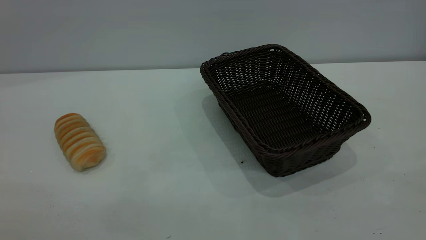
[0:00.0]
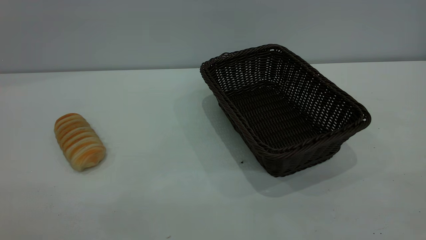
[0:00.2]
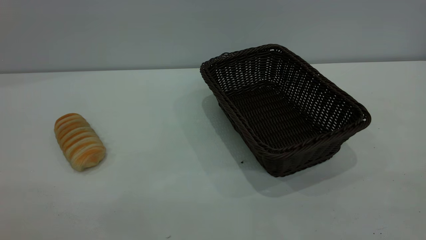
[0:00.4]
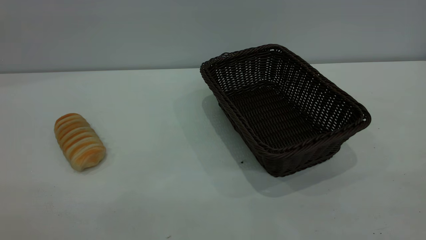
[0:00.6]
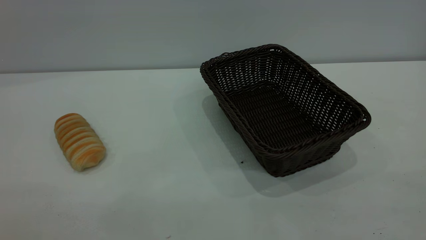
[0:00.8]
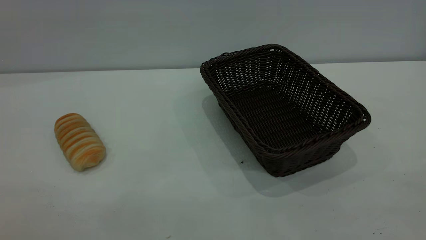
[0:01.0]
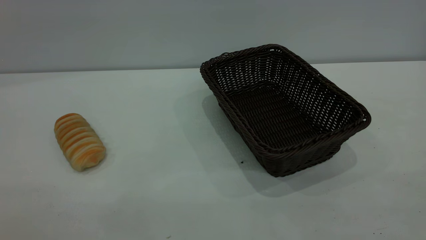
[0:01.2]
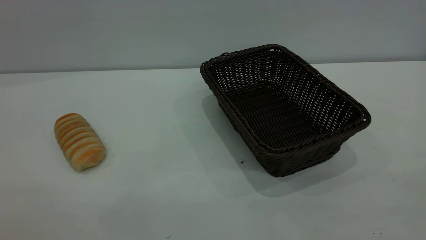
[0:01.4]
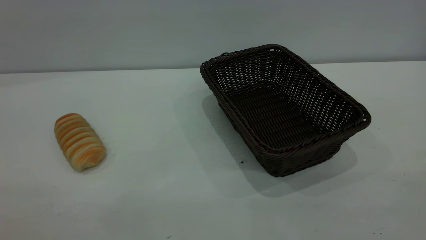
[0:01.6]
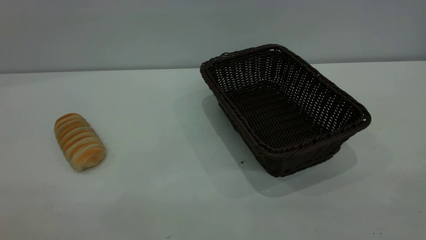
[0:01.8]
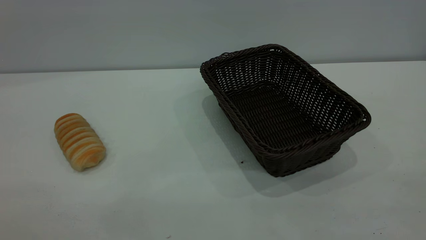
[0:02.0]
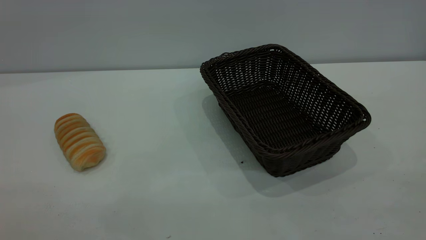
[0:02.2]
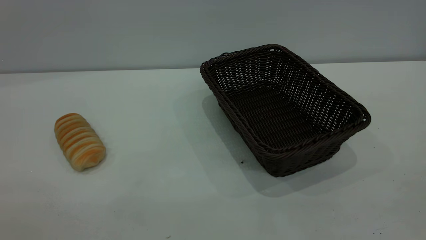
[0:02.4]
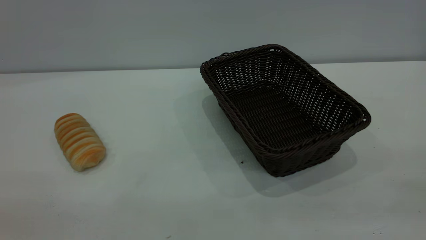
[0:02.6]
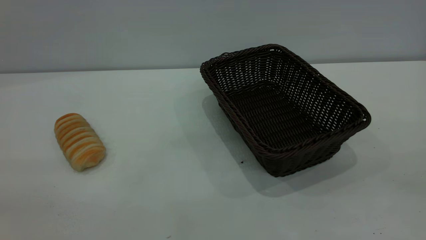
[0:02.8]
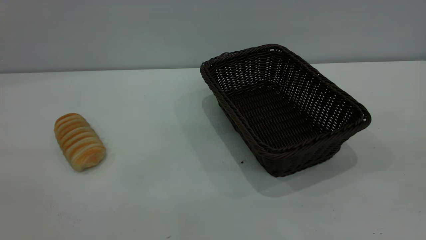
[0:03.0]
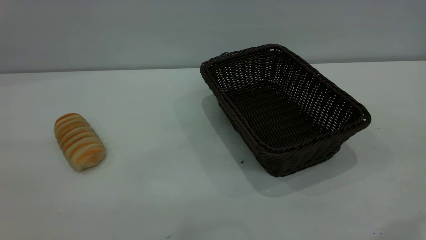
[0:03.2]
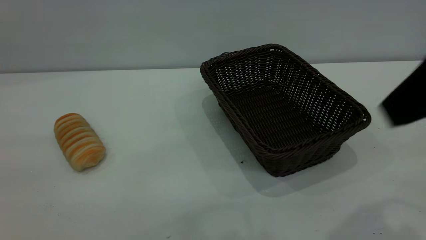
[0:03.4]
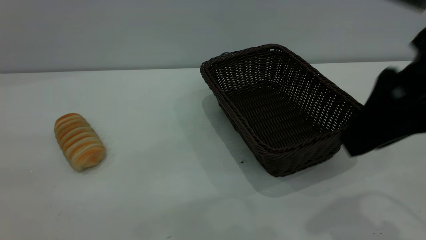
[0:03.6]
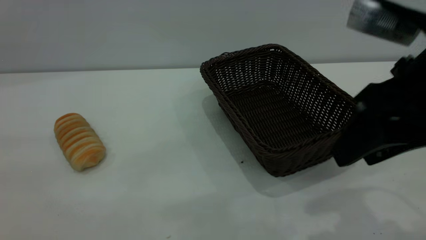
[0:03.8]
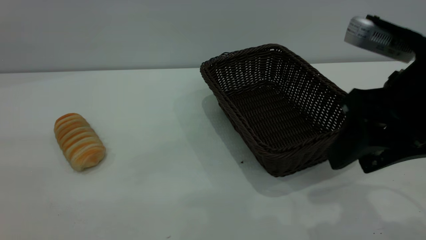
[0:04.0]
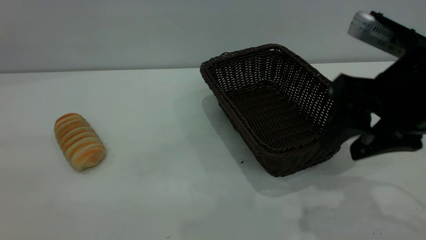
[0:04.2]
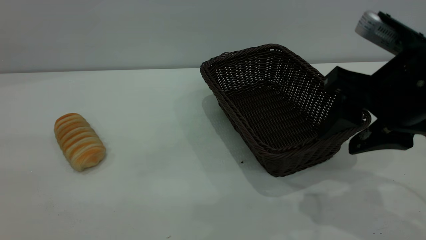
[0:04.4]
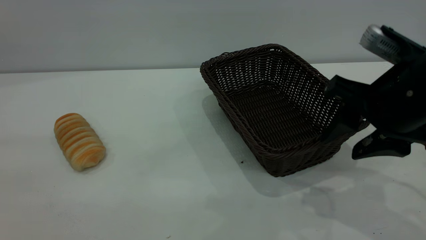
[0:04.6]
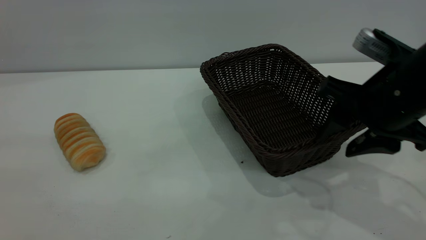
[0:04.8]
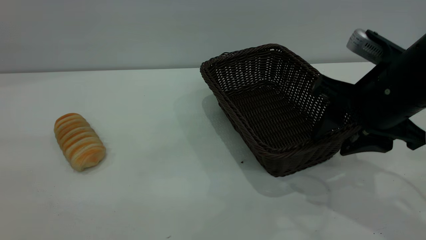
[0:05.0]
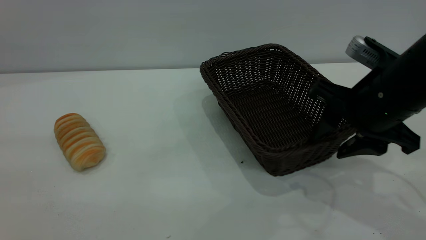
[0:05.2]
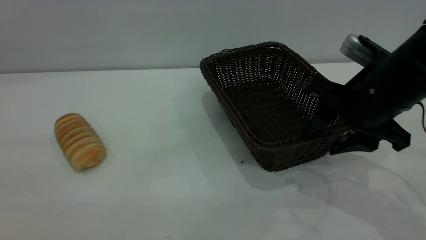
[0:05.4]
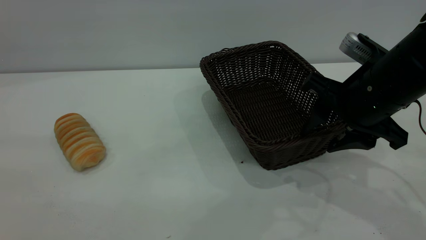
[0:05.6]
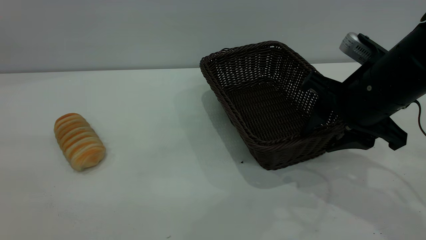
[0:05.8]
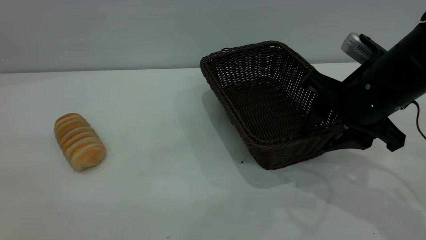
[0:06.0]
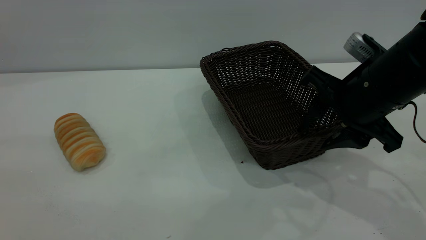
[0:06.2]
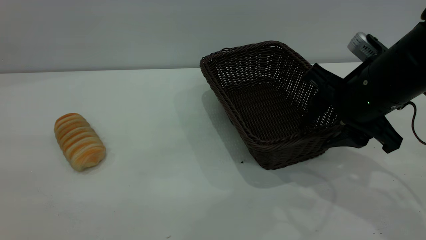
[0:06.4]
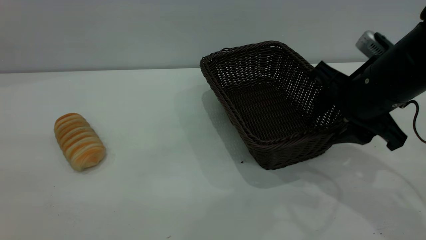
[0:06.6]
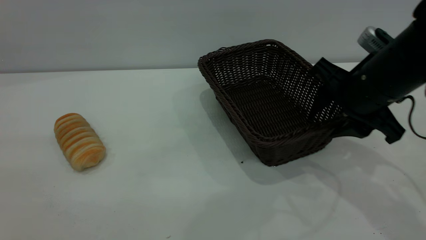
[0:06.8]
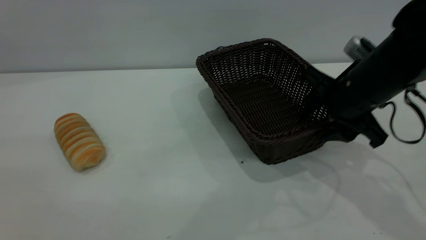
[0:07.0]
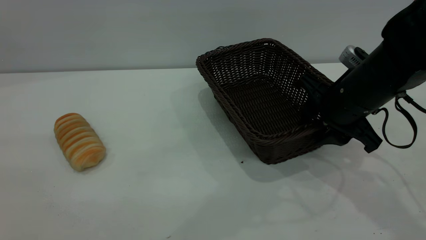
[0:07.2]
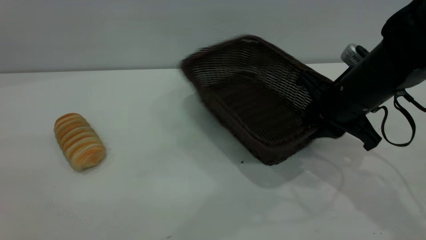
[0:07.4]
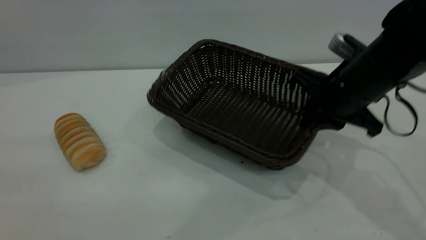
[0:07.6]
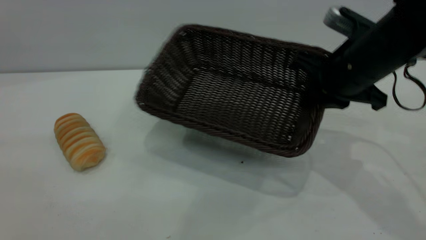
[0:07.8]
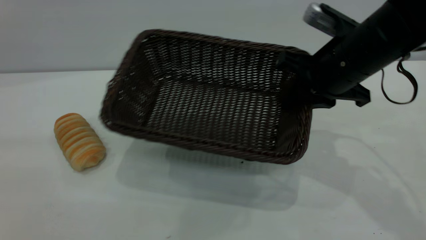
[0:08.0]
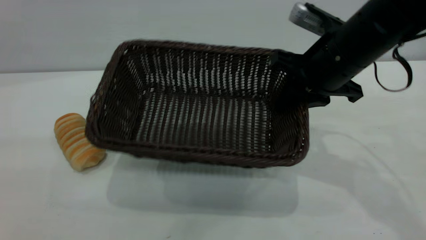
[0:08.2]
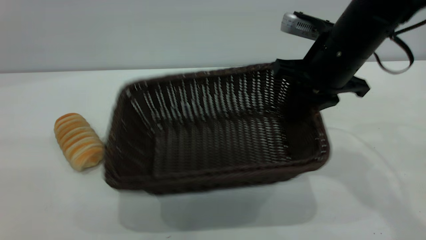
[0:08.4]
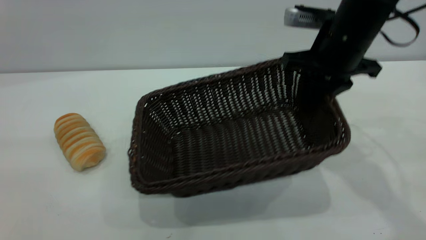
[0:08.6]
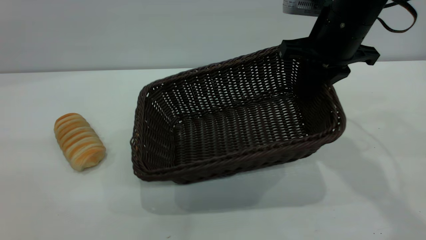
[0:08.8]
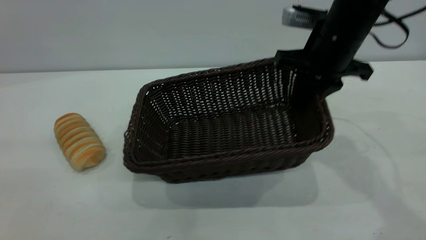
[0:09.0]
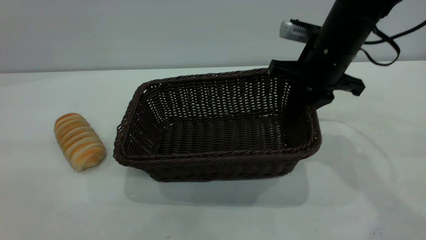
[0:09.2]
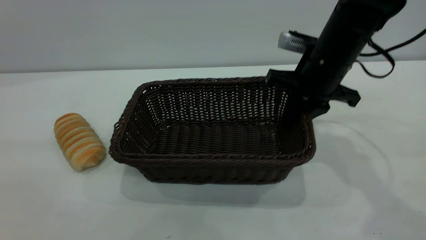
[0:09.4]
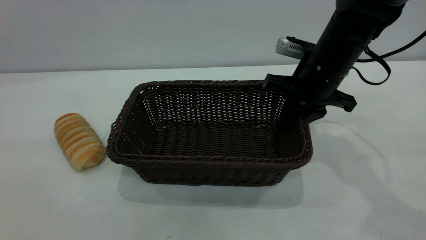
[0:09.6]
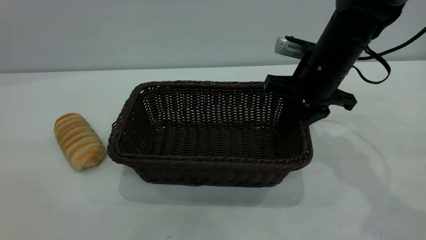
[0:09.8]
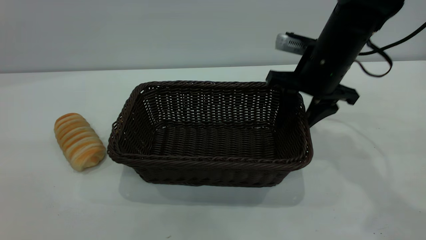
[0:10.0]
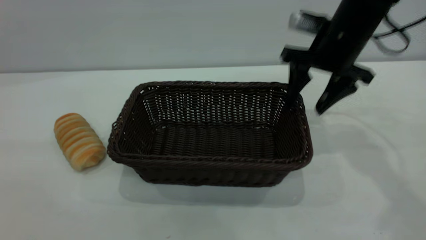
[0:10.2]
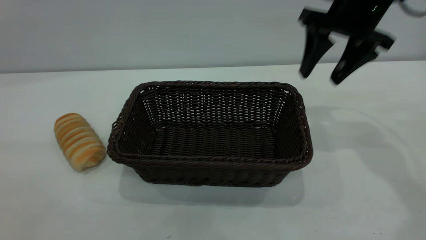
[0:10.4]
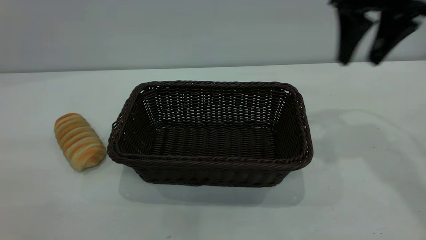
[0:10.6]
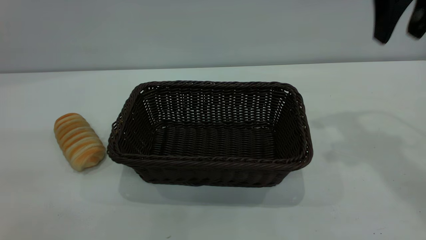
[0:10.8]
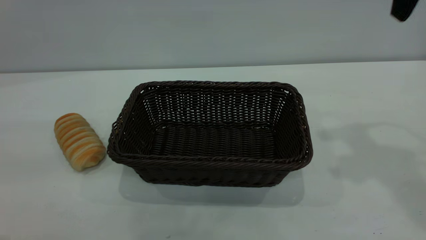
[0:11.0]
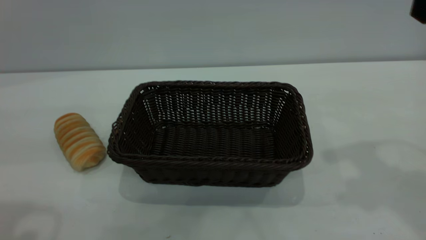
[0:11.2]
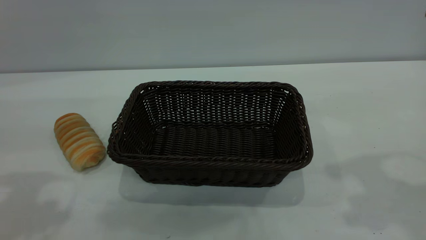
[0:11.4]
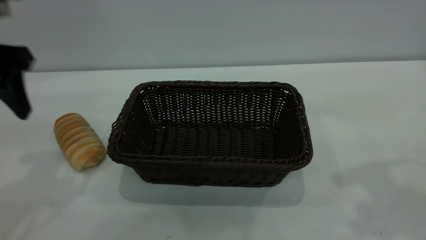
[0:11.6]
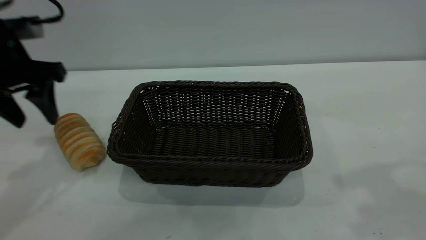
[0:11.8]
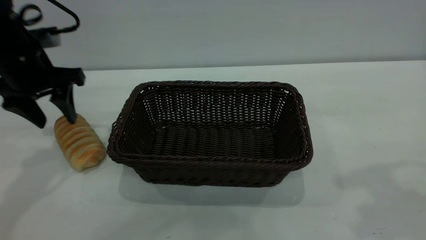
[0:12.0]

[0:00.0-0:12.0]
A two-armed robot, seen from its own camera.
Task of the whole recording: One hand grasps the black basket and places it in the middle of the table, while the other hand picks up the long bread and puts it into the black basket.
Step, 0:00.0 to 0:10.4: Move the basket to the center of view.
0:00.0 to 0:01.6: The two grippers keep their place.
0:03.0 to 0:04.4: The right gripper goes roughly 20 cm downward and forward.
0:04.4 to 0:06.0: The right gripper changes place by approximately 5 cm.
0:06.0 to 0:07.6: The right gripper closes.
0:07.6 to 0:09.0: The right gripper goes some 5 cm forward.
0:09.0 to 0:10.4: The right gripper moves upward, about 5 cm, and opens its fingers.
0:10.4 to 0:12.0: The left gripper travels forward and downward by some 40 cm, while the right gripper moves backward and upward, about 25 cm.

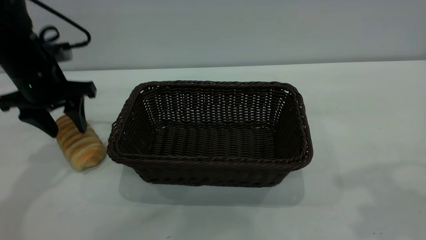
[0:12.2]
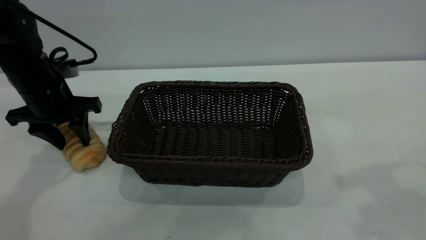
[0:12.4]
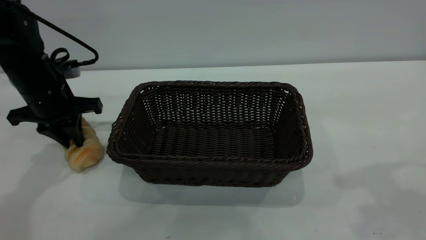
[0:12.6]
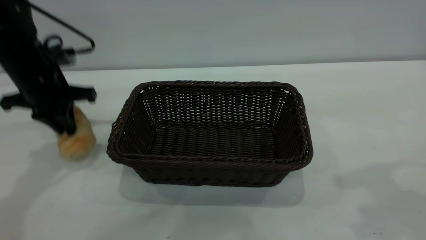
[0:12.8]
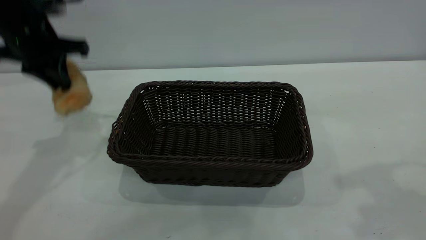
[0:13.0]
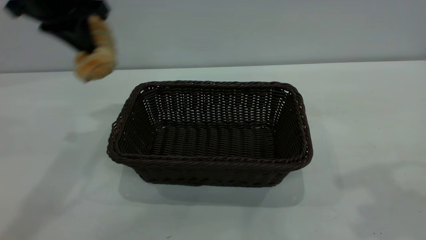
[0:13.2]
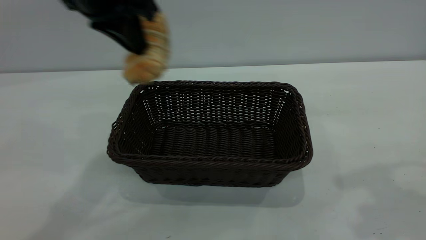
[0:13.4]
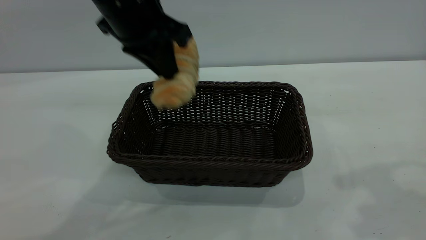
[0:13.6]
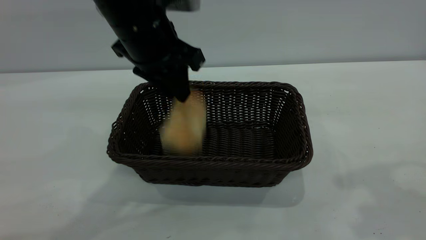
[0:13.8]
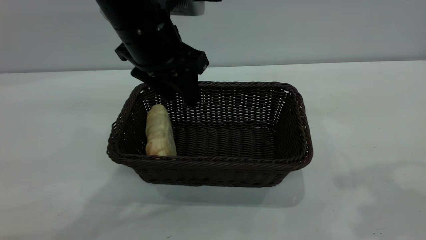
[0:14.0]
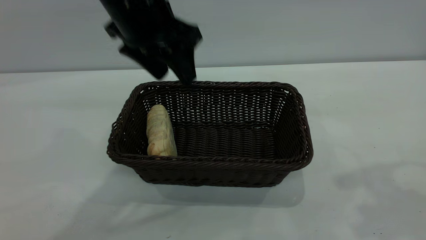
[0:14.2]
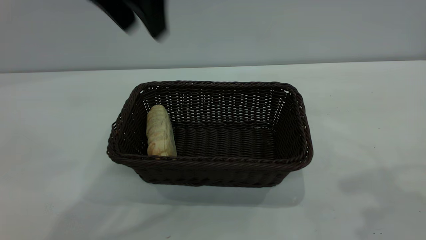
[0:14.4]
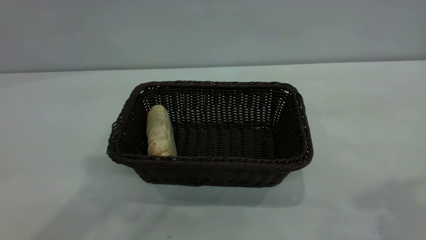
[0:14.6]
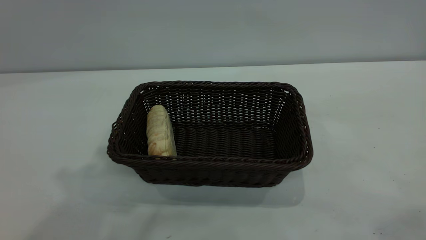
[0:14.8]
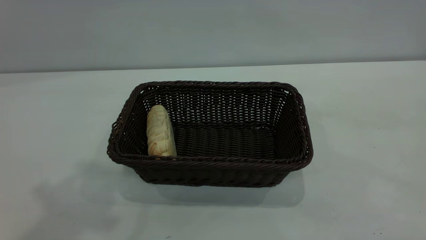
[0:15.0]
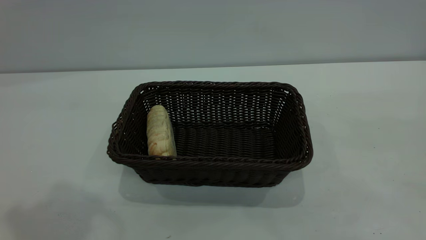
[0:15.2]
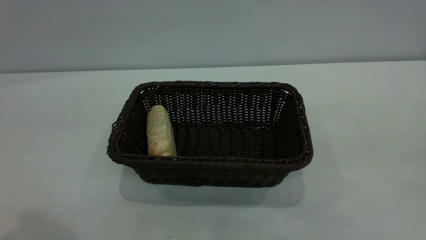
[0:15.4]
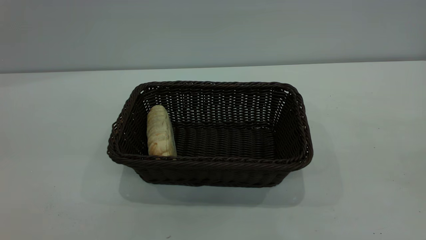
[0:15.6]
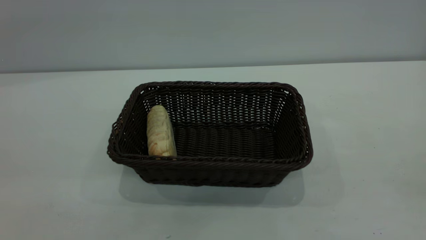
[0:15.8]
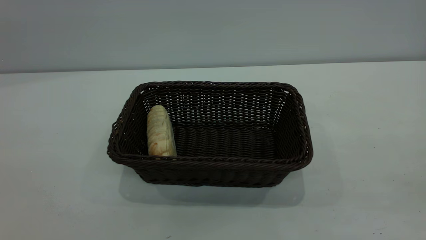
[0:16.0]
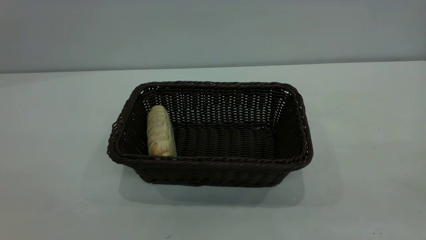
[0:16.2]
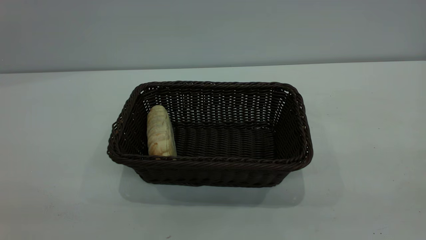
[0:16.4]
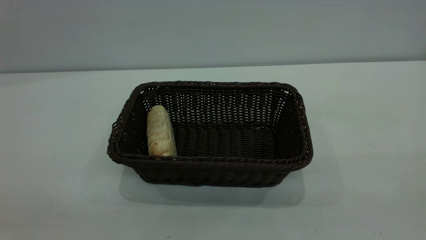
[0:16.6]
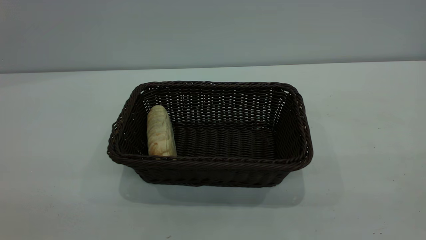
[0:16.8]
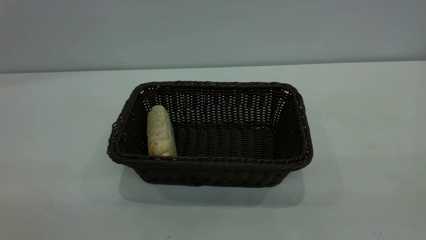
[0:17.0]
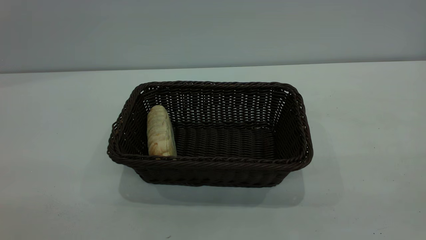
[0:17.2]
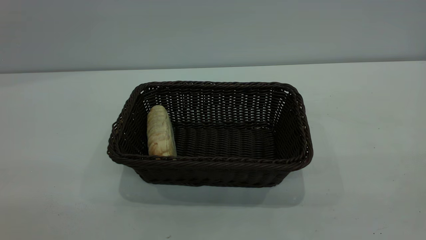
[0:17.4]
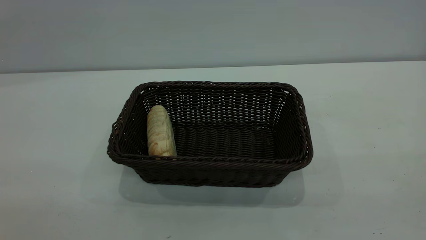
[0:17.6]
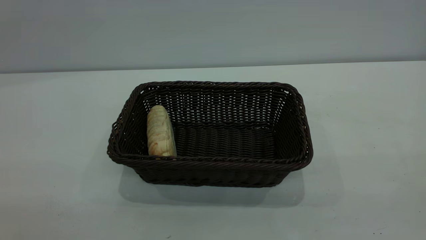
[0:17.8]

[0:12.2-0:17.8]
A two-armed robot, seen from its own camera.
Task of the whole recording: One hand grasps the black basket and places it in the middle of the table, while the other hand picks up the long bread and puts it into the black basket.
Step, 0:13.2 to 0:14.2: place the bread into the basket.
0:12.2 to 0:13.6: The left gripper goes about 20 cm to the right and upward, and closes up.
0:13.6 to 0:15.0: The left gripper goes some 25 cm upward and backward, and opens, while the right gripper goes approximately 15 cm backward and upward.
